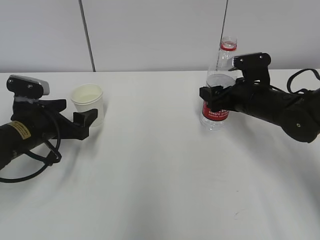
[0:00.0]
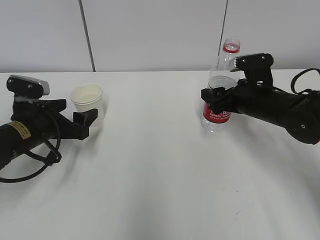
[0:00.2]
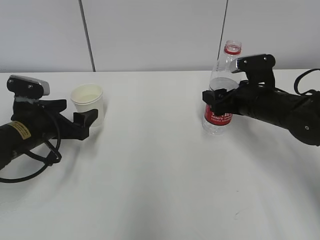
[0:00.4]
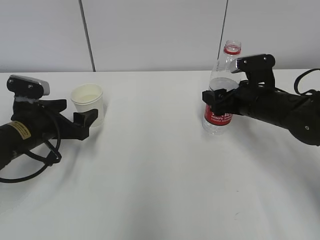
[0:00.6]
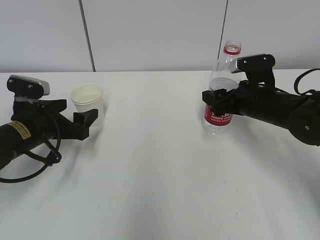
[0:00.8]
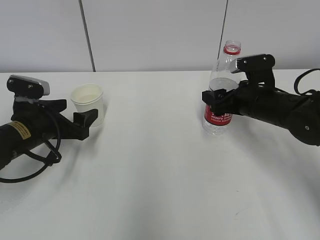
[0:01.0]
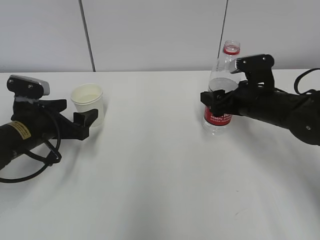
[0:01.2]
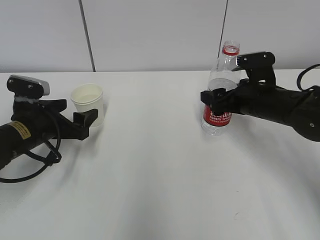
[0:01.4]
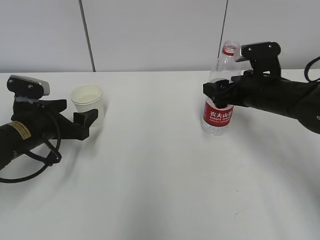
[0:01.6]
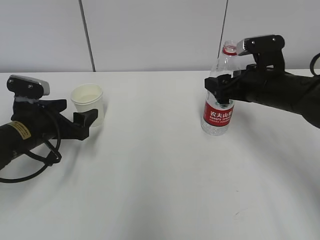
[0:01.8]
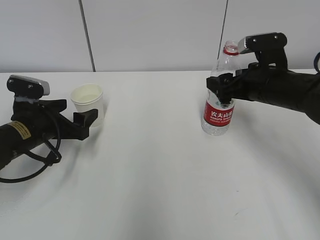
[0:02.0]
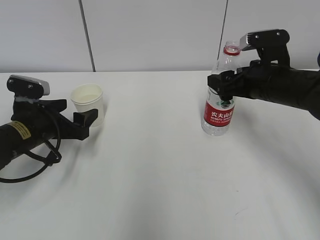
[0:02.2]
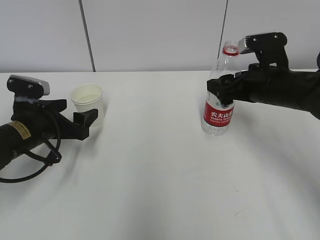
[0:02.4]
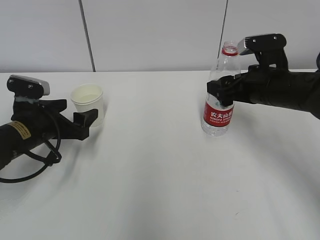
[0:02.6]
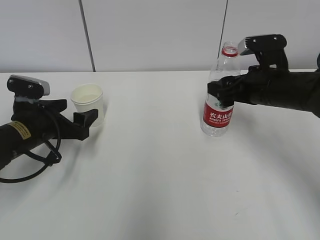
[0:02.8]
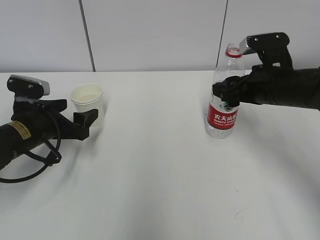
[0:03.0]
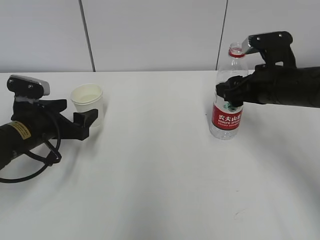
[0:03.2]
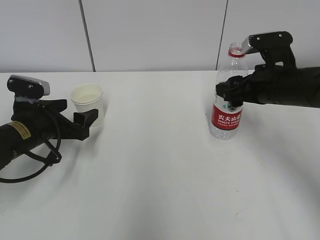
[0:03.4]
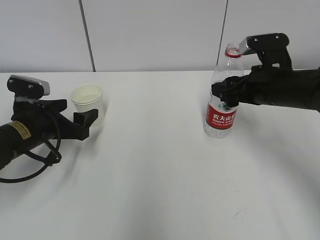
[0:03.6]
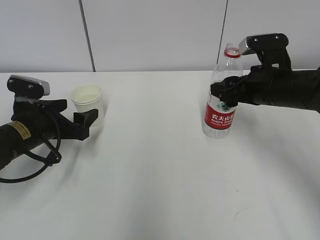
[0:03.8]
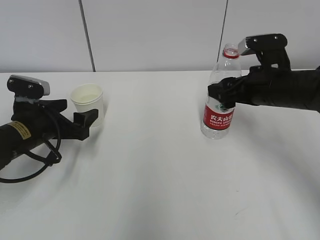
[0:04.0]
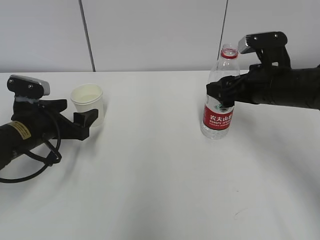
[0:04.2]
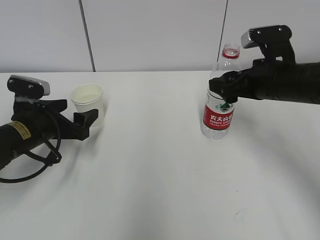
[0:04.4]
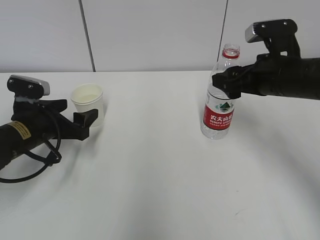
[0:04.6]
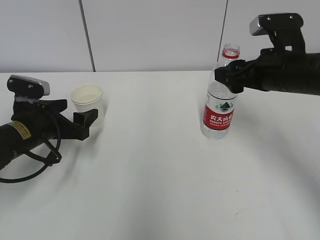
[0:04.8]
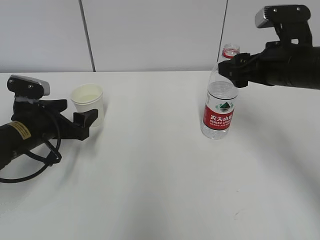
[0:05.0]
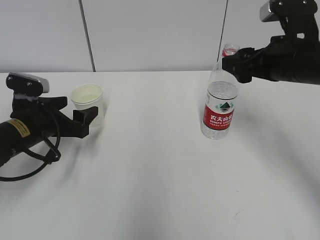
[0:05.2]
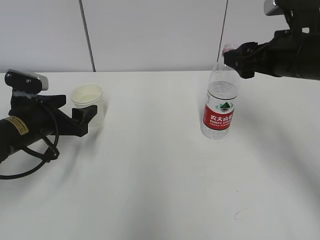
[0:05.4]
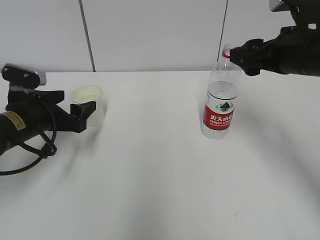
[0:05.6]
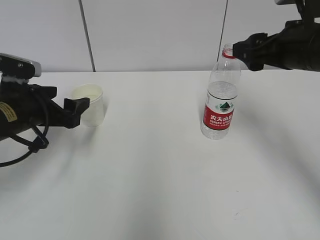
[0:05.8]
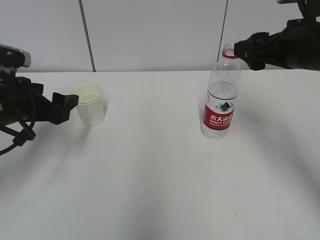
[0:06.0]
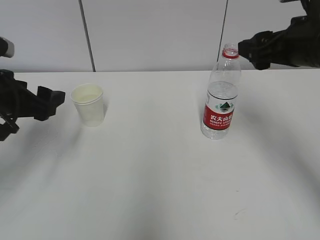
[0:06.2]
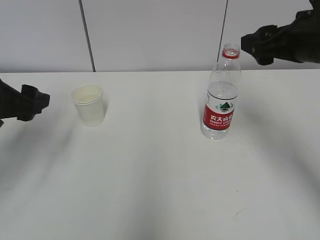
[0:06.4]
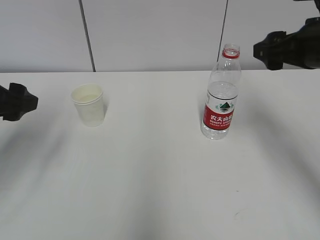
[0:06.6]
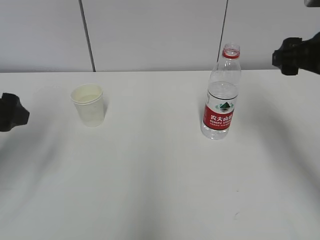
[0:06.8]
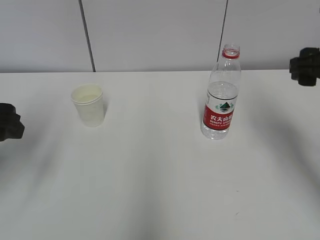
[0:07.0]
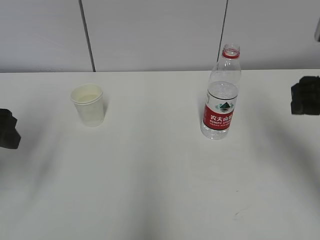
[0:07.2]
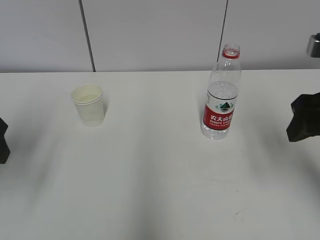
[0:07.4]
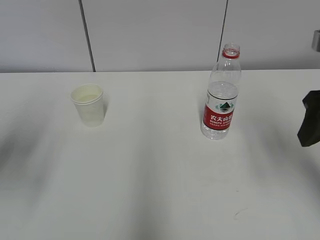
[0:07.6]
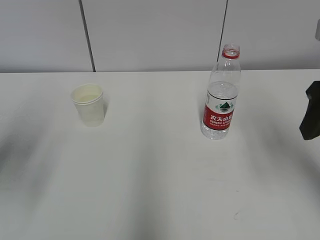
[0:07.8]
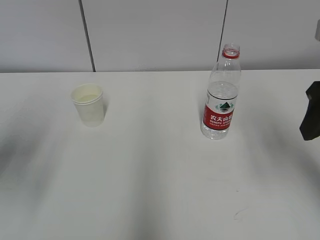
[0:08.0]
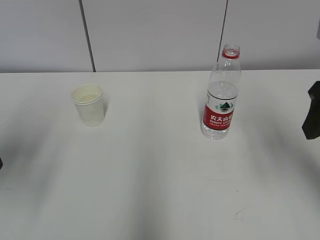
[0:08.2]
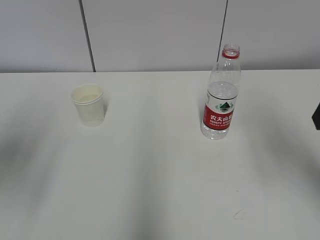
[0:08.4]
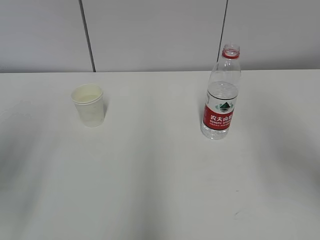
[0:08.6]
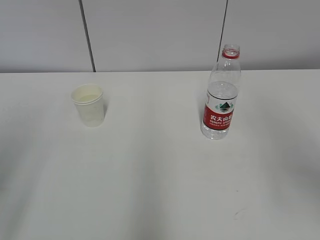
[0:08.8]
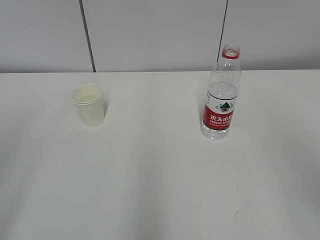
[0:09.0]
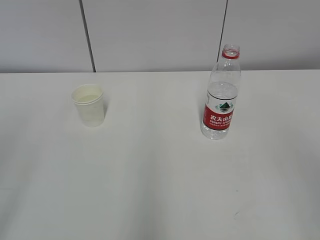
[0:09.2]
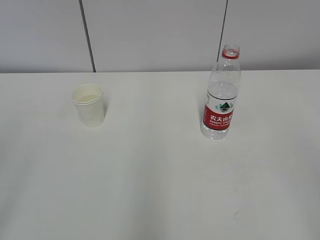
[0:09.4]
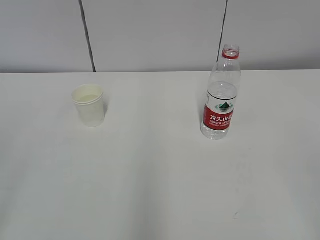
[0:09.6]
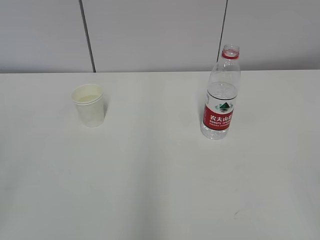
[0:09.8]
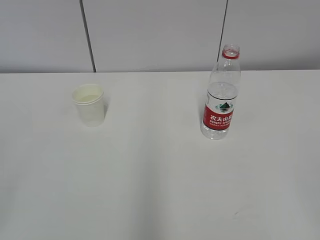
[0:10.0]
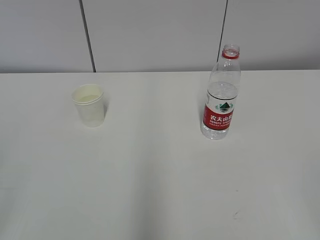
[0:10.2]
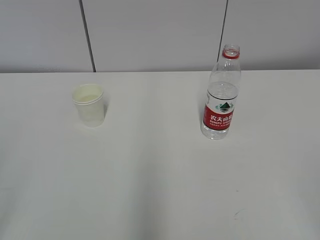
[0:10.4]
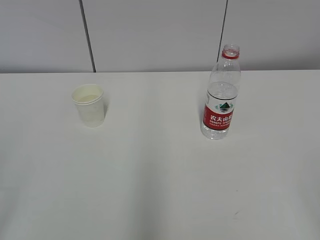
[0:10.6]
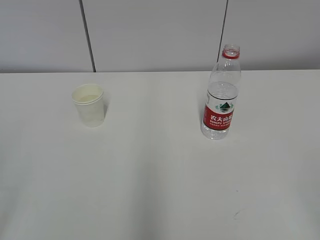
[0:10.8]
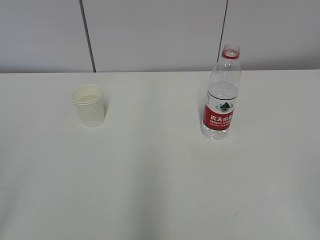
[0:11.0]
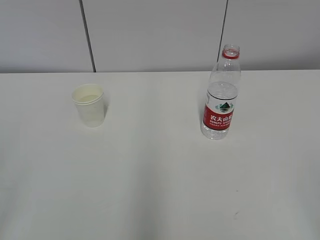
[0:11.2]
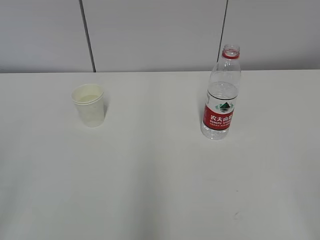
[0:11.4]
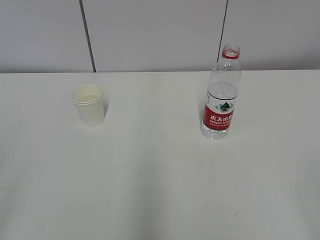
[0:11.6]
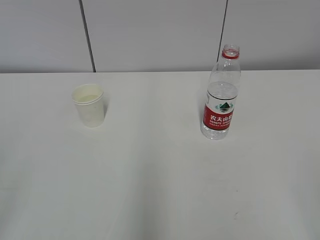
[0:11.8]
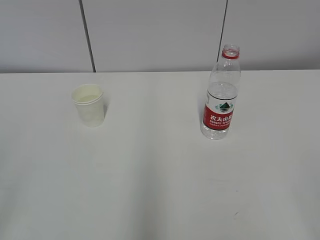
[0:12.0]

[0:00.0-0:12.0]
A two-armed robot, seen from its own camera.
0:00.0 to 0:01.6: There are only small adjustments of the grippers.
0:01.6 to 0:03.0: The right gripper closes.
0:03.0 to 0:04.4: The right gripper opens its fingers.
0:04.4 to 0:06.0: Both grippers move upward, roughly 5 cm.
0:06.0 to 0:07.6: The right gripper shifts approximately 10 cm backward; the left gripper shifts roughly 15 cm upward and backward.
0:07.6 to 0:09.0: The grippers both shift backward by about 15 cm.

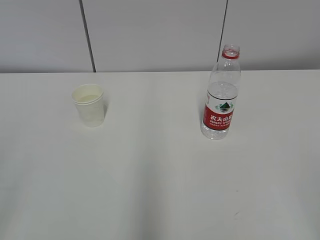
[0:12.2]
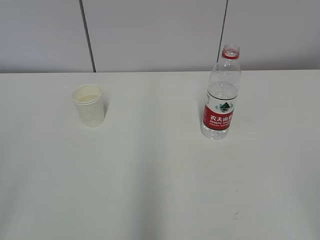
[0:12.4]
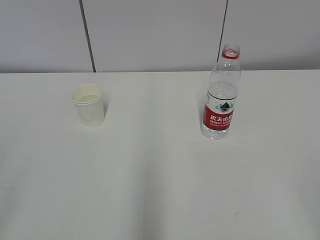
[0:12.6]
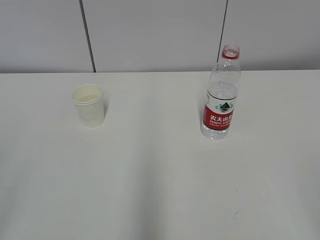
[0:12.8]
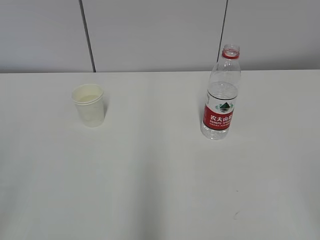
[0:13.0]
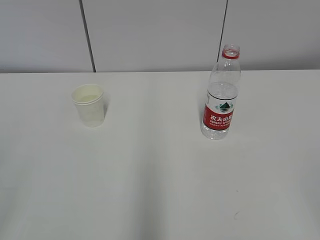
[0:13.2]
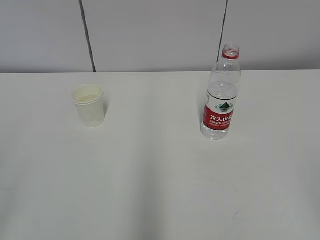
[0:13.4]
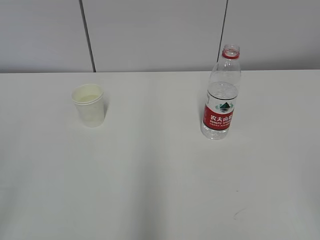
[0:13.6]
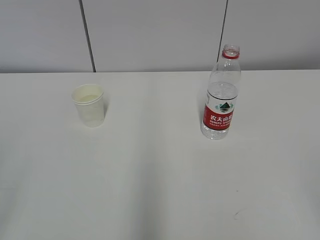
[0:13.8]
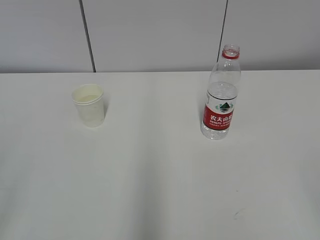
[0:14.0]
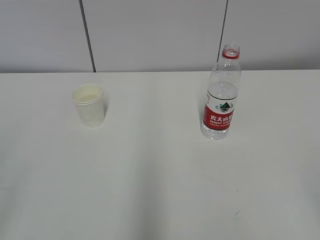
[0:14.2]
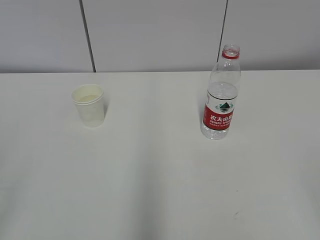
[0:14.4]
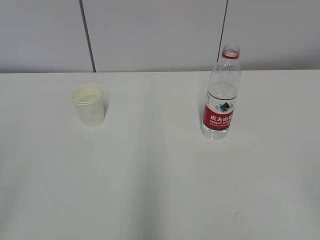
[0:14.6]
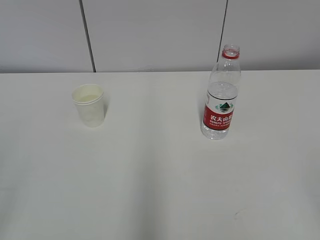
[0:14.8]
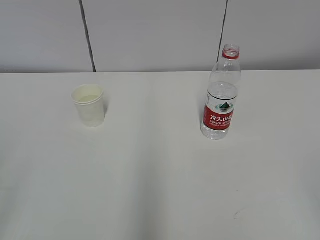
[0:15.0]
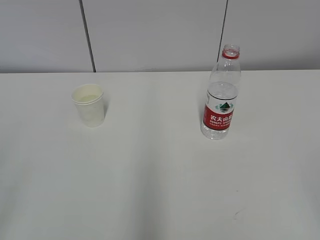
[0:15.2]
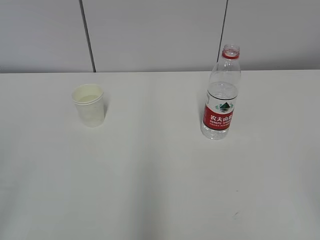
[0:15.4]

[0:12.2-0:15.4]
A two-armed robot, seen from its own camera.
0:13.8 to 0:15.4: Both grippers stay put.
